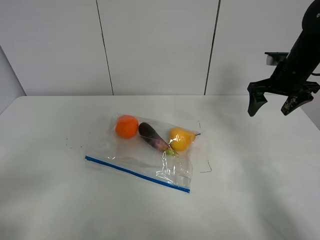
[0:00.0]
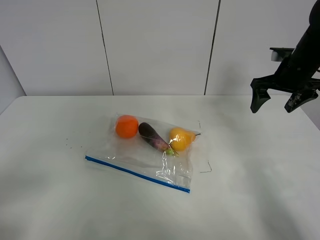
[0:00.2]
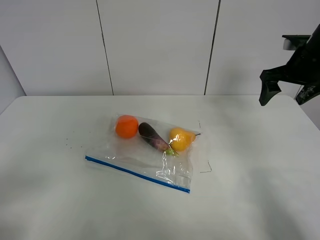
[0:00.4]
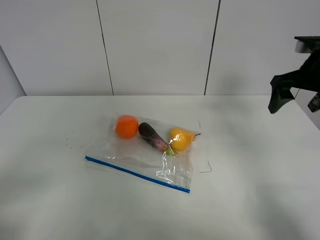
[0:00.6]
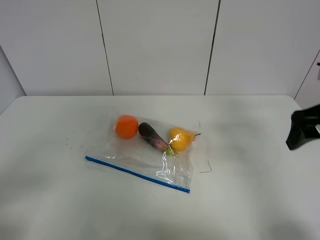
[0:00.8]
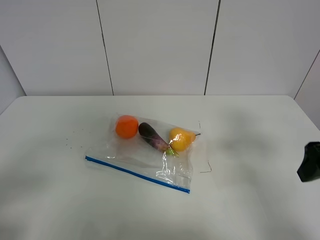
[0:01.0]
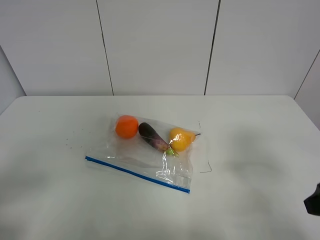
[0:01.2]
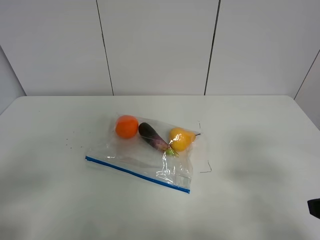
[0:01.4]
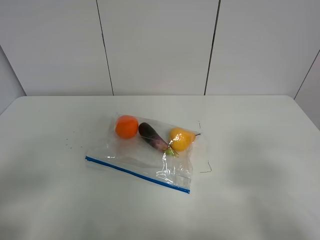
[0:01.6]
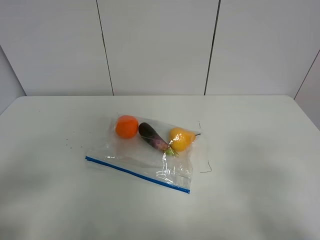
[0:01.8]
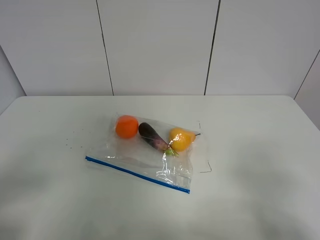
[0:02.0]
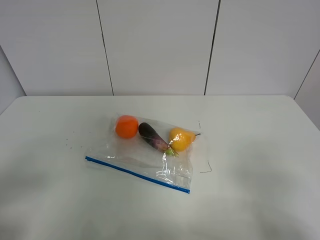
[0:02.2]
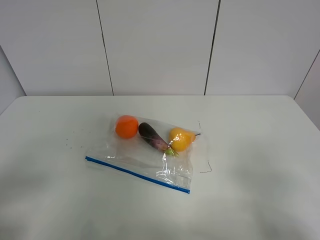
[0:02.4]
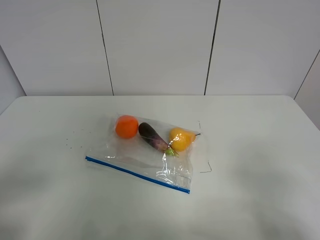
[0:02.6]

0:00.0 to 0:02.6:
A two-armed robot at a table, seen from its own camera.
0:00.0 to 0:01.2: The right gripper goes approximately 30 cm backward.

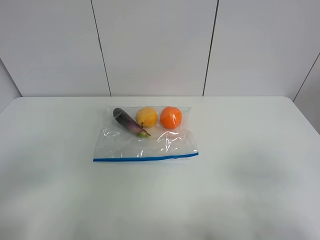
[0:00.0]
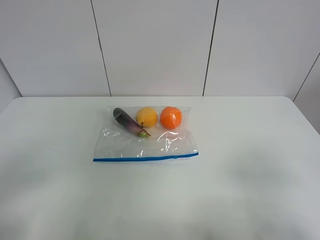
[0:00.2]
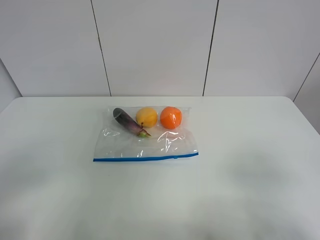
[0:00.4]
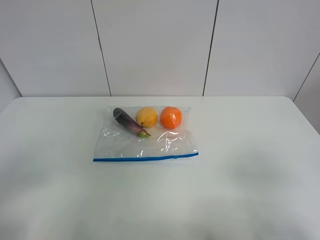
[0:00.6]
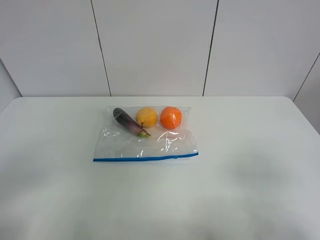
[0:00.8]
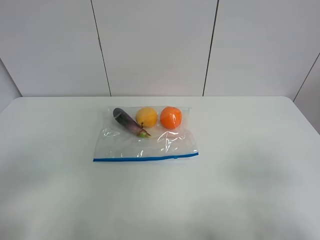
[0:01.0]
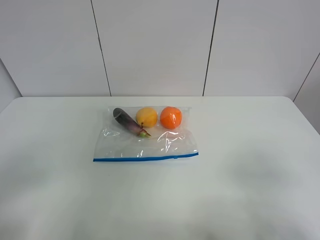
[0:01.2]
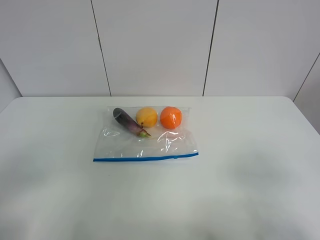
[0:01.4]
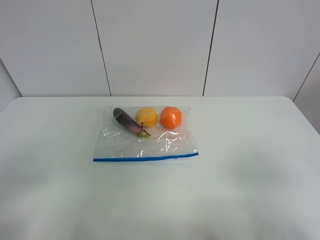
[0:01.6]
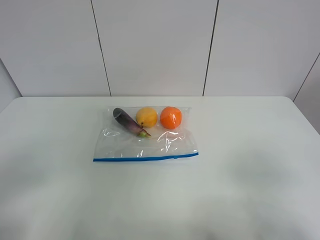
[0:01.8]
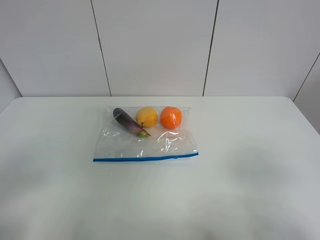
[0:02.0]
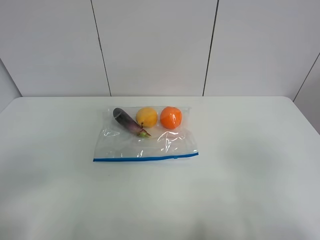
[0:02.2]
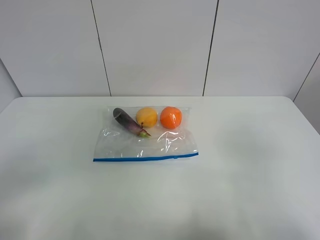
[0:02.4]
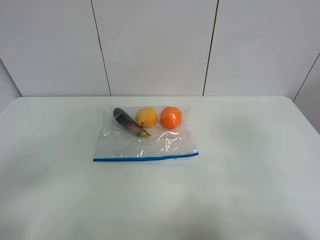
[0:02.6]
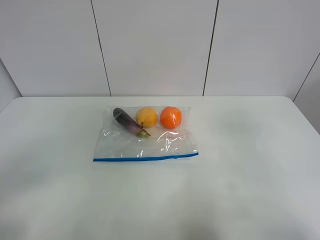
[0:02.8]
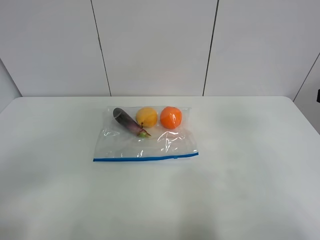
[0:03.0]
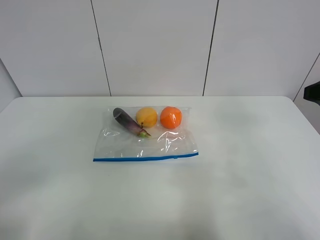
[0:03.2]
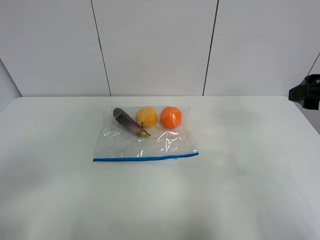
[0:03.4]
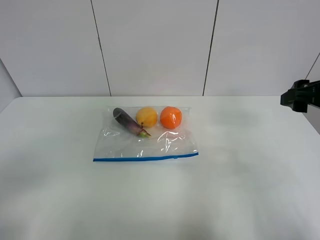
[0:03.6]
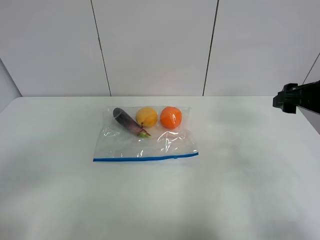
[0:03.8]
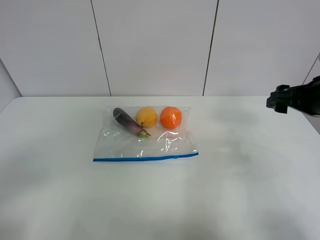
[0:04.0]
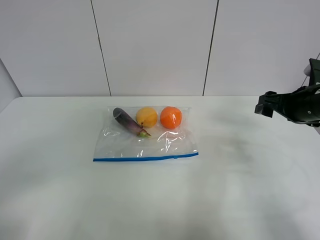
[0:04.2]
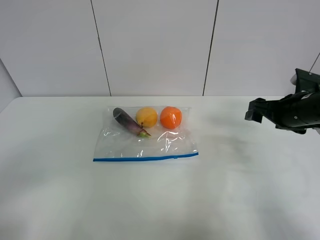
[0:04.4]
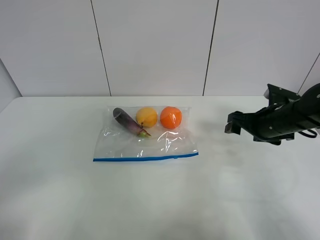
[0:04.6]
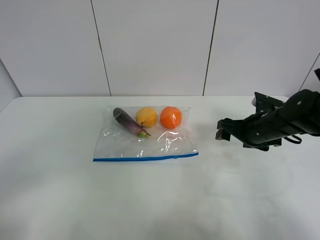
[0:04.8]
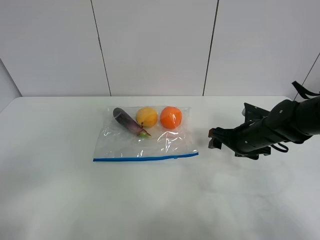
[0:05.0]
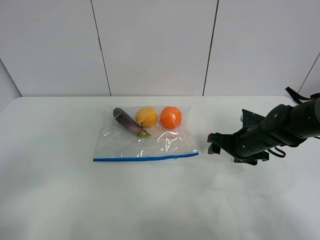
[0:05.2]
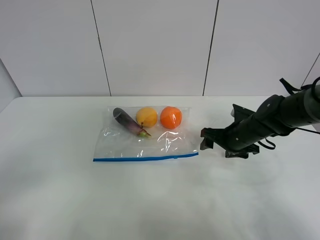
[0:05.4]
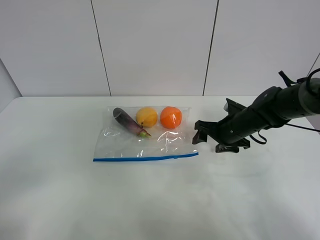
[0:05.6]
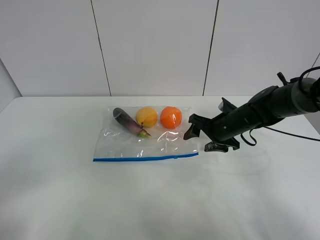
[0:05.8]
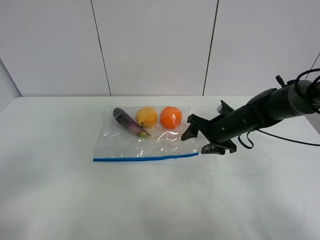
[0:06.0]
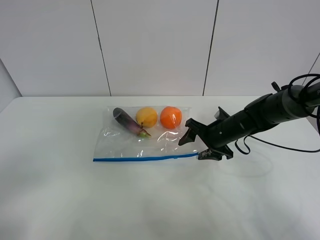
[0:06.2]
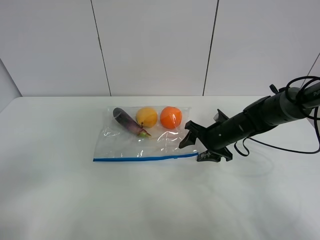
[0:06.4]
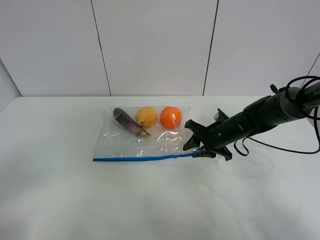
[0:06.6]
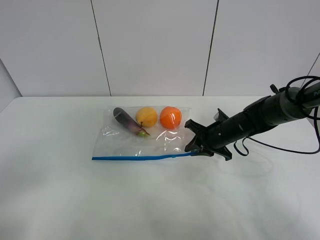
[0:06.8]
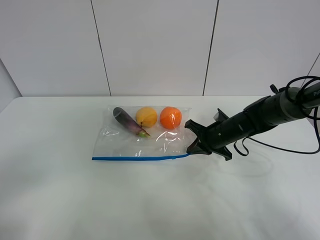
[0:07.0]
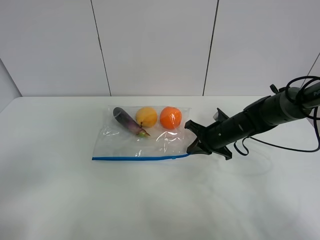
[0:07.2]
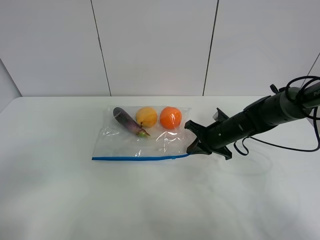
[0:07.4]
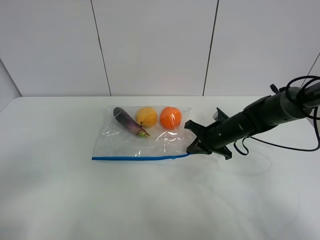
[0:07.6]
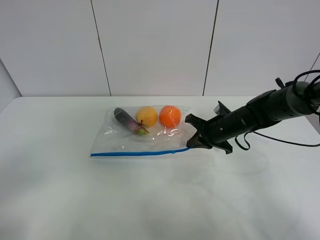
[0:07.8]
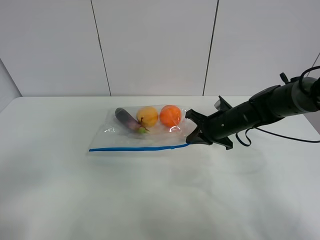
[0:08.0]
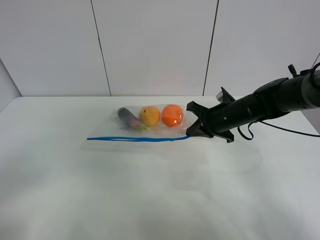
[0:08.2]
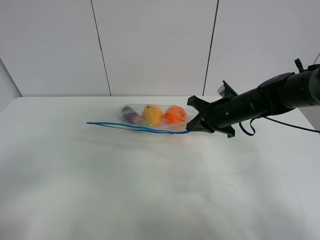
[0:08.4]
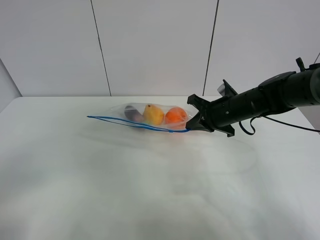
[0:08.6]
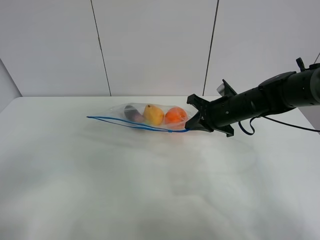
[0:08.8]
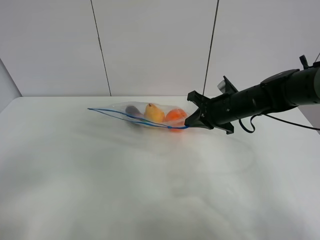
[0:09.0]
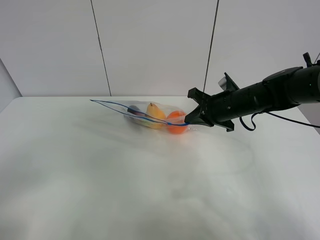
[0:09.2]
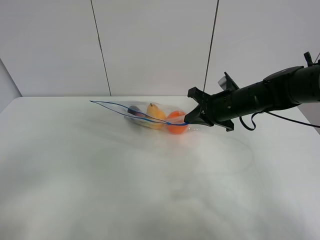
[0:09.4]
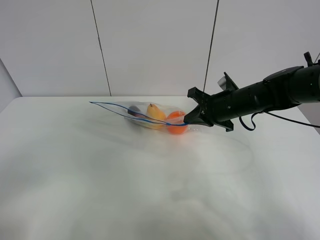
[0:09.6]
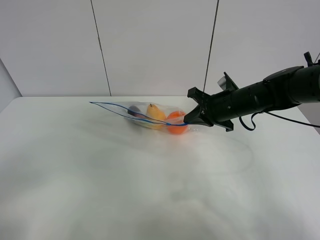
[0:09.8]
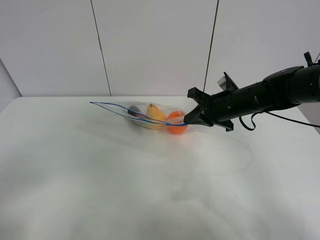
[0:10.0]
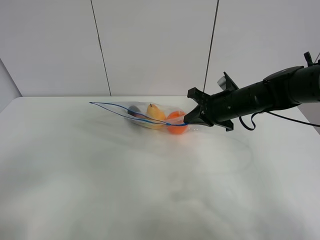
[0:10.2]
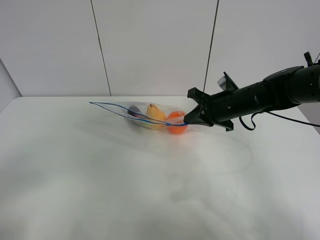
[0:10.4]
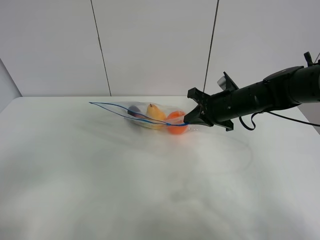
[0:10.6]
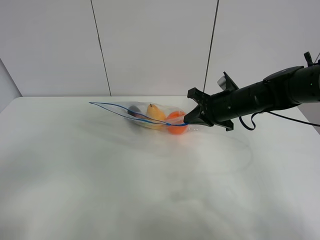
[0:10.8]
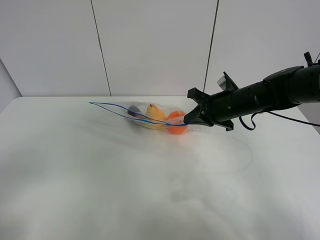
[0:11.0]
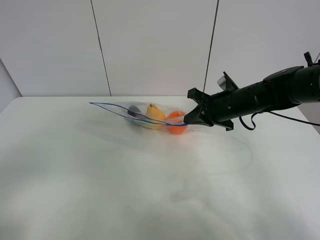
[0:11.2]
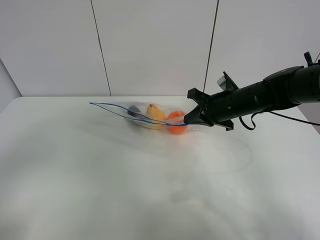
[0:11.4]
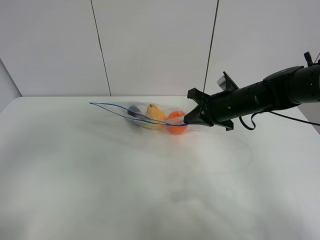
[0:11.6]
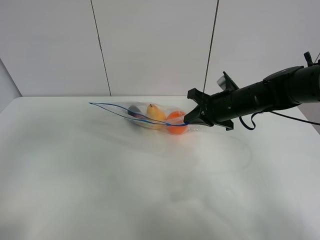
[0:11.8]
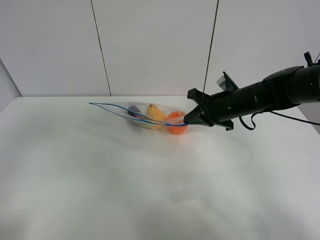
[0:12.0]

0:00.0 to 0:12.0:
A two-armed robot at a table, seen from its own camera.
Step, 0:00.0 to 0:06.8: Grasp the fruit bag with right gripper.
Step, 0:07.0 to 0:09.6: Lift the fruit bag with your right gripper.
0:00.0 to 0:01.6: Both grippers stay put.
0:01.6 to 0:03.0: The right gripper travels forward and upward by about 15 cm.
0:03.0 to 0:04.4: The right gripper travels forward and downward by about 20 cm.
0:04.4 to 0:06.0: The right gripper goes about 15 cm to the left, downward and forward.
0:06.0 to 0:07.6: The right gripper closes.
0:07.6 to 0:09.0: The right gripper travels upward by roughly 10 cm.
0:09.0 to 0:10.4: Neither gripper changes place.

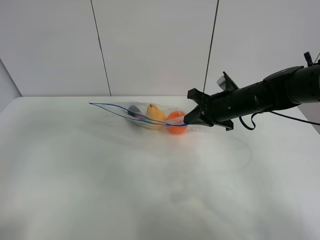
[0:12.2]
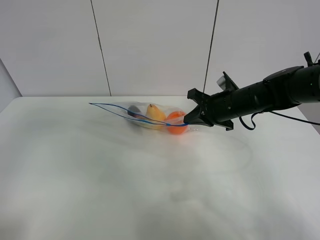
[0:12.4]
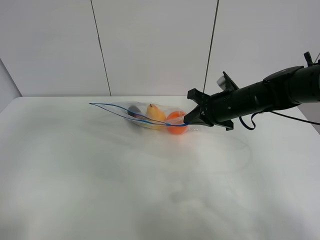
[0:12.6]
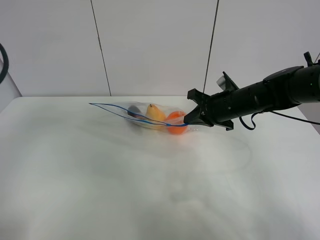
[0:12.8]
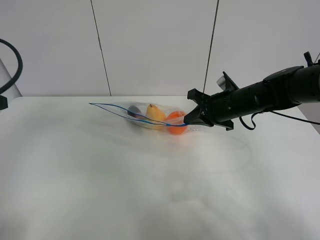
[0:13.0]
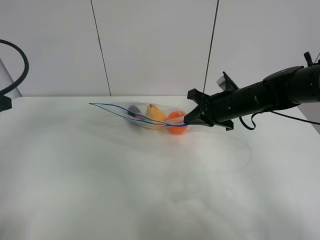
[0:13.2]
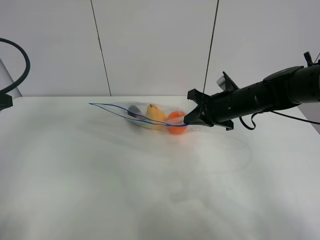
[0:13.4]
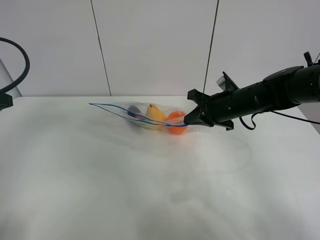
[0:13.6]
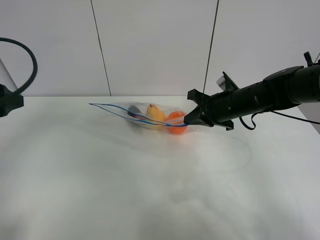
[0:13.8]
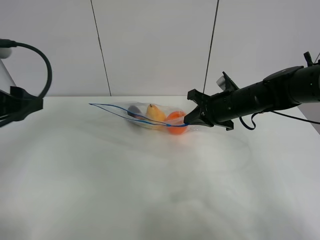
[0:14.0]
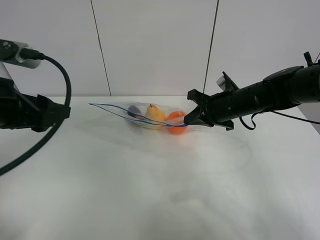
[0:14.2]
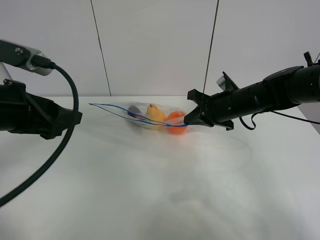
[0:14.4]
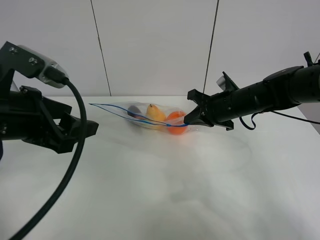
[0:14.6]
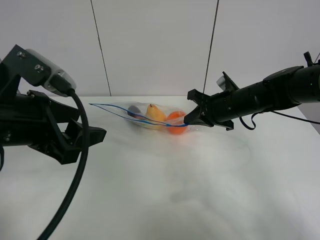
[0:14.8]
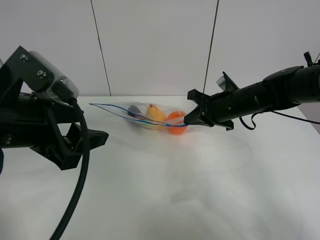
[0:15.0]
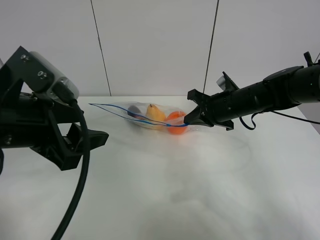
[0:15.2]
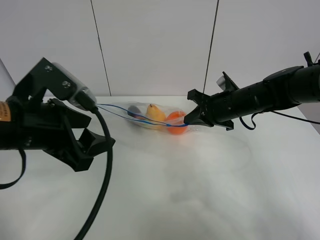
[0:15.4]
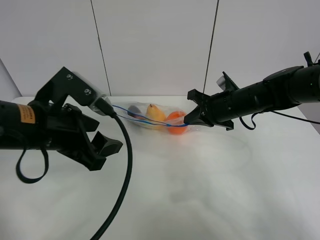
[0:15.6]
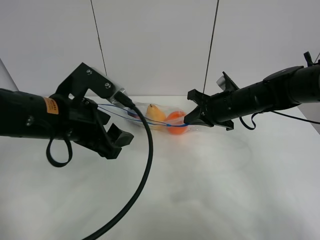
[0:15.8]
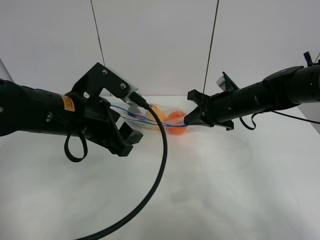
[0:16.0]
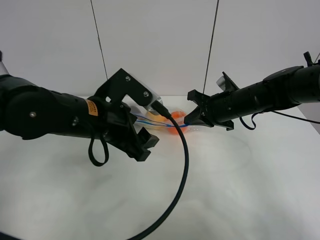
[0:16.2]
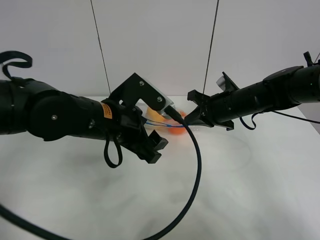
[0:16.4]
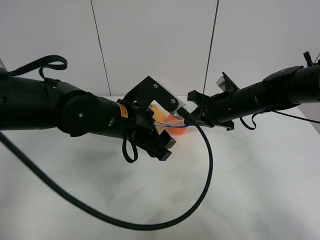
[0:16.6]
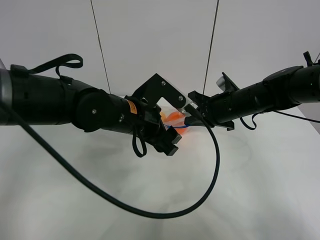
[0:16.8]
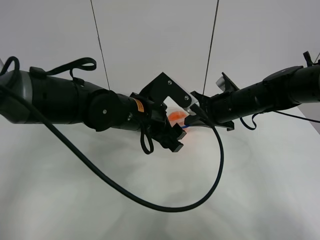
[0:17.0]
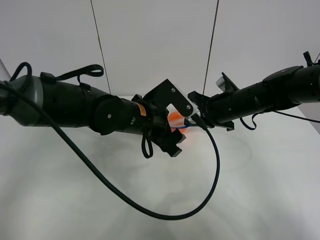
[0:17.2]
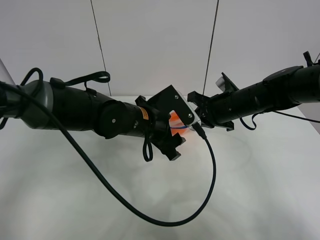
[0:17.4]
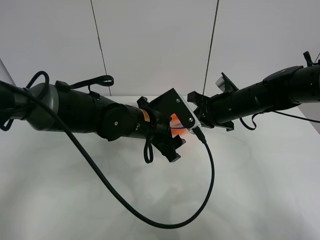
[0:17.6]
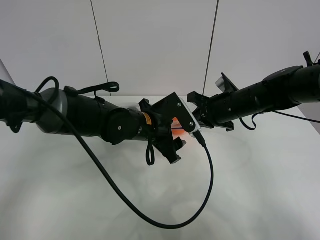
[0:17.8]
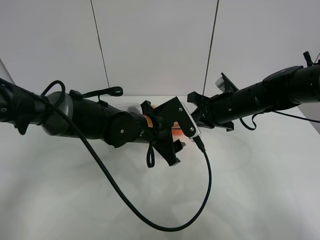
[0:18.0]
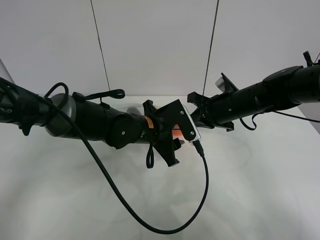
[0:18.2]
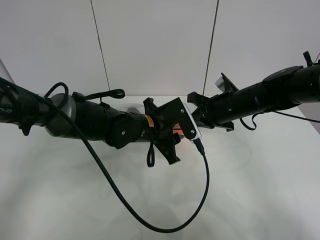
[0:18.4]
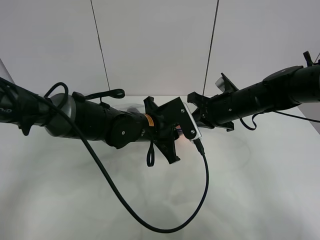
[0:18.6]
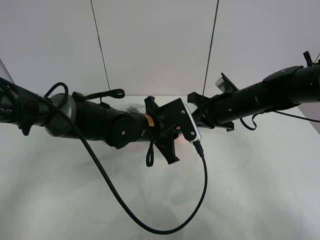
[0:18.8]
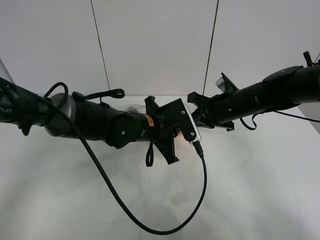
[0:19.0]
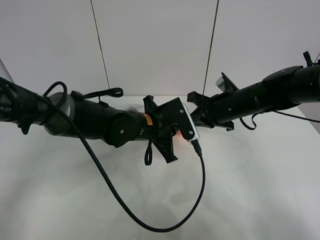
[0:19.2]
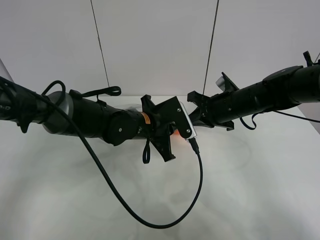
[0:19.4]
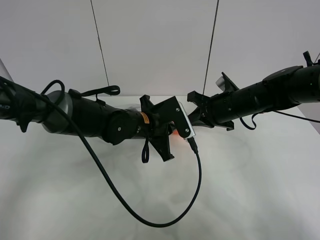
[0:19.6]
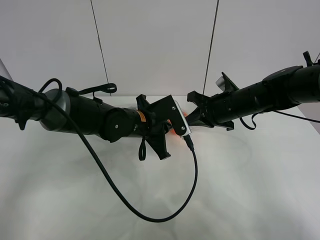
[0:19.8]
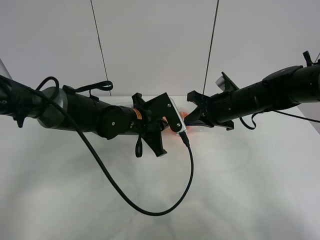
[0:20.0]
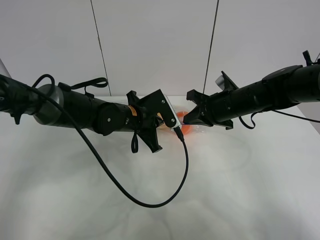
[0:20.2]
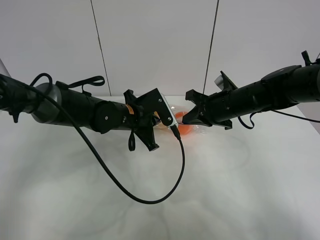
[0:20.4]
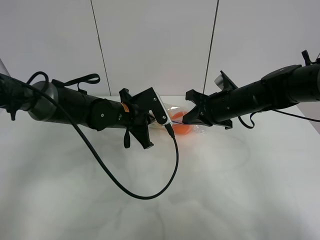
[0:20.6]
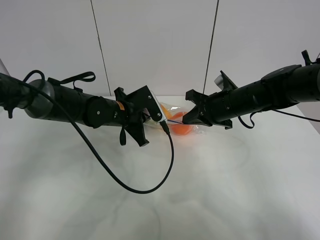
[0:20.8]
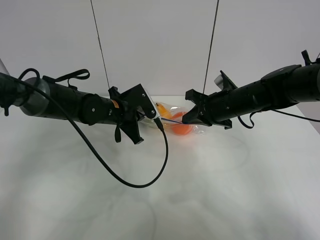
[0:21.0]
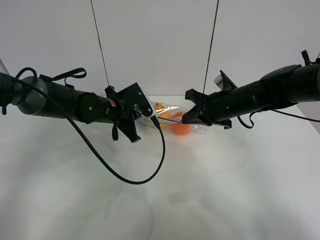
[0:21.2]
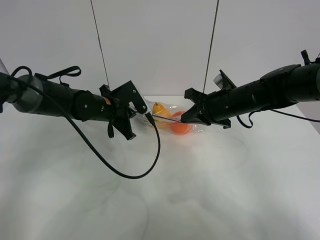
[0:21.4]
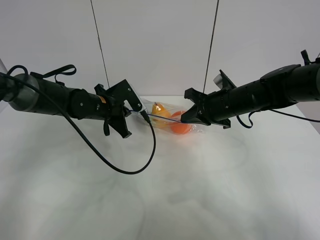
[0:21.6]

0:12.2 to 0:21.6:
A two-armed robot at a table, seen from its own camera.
0:12.2 to 0:13.8: The left gripper travels forward by approximately 10 cm.
0:13.8 to 0:15.4: The left gripper heads to the right, covering some 15 cm.
0:15.4 to 0:17.0: The left gripper goes some 20 cm to the right, forward and downward.
0:17.0 to 0:18.4: The left gripper shifts by some 5 cm, and closes up.
0:18.4 to 0:20.0: The left gripper closes.
0:20.0 to 0:21.6: The left gripper shifts roughly 10 cm to the left and forward.
